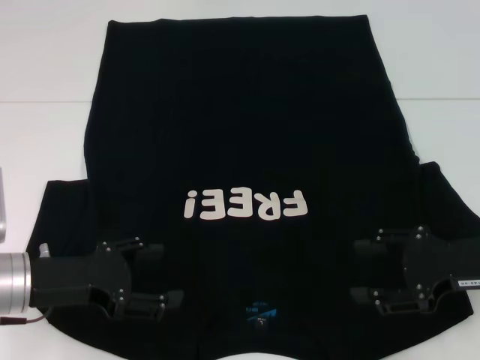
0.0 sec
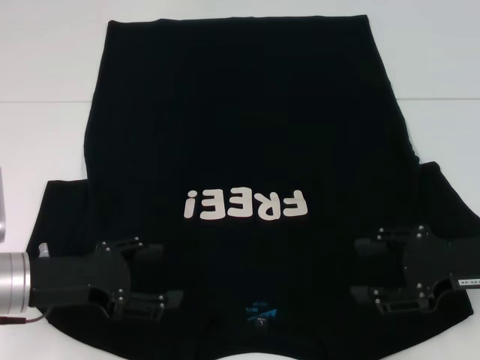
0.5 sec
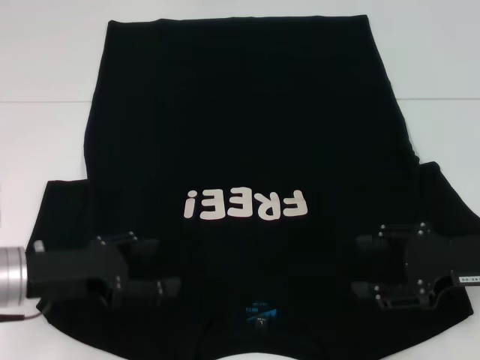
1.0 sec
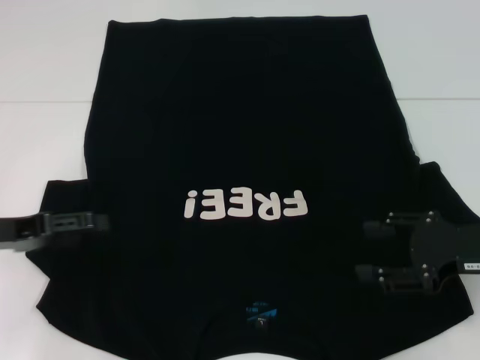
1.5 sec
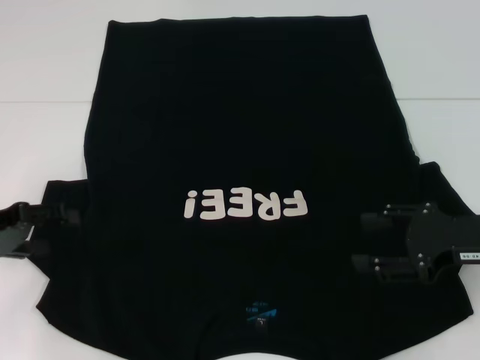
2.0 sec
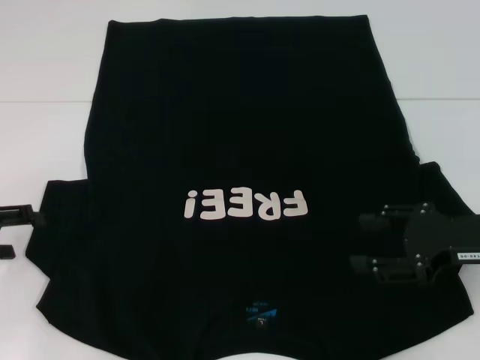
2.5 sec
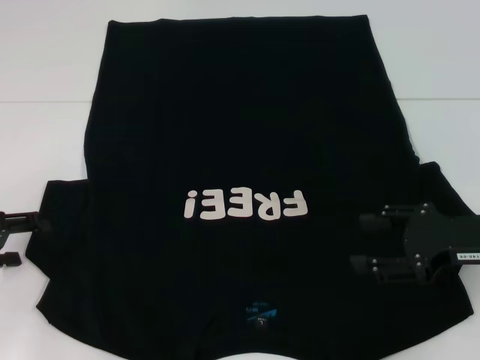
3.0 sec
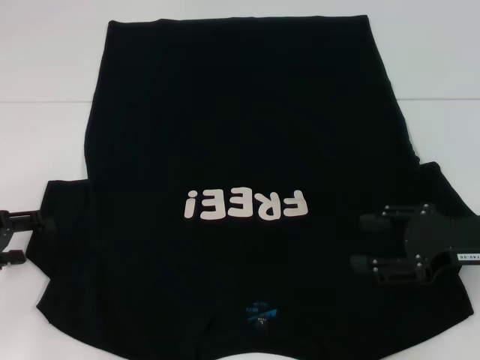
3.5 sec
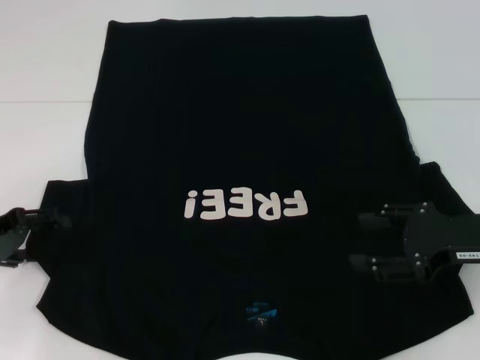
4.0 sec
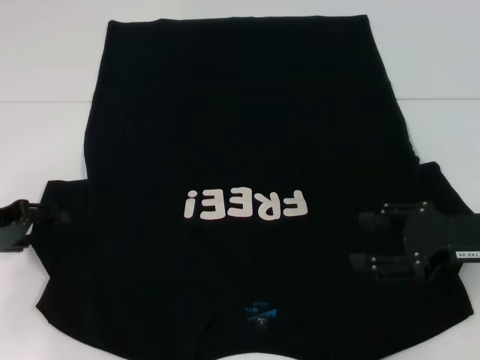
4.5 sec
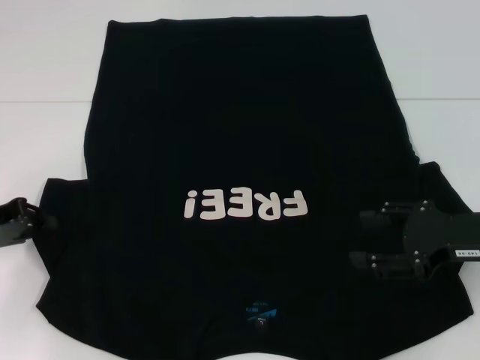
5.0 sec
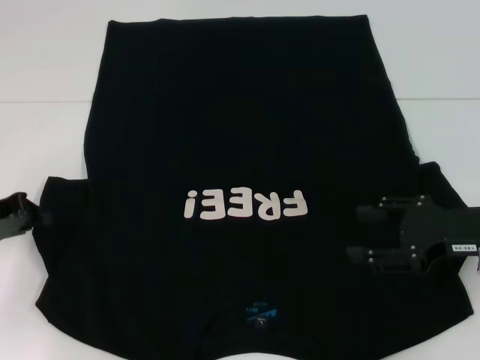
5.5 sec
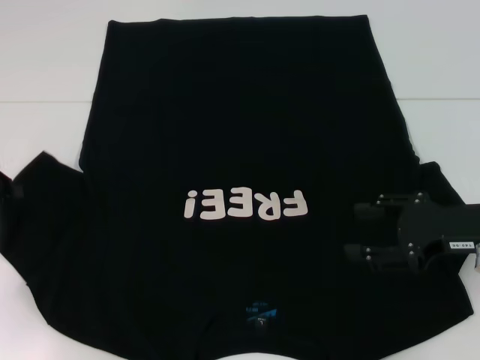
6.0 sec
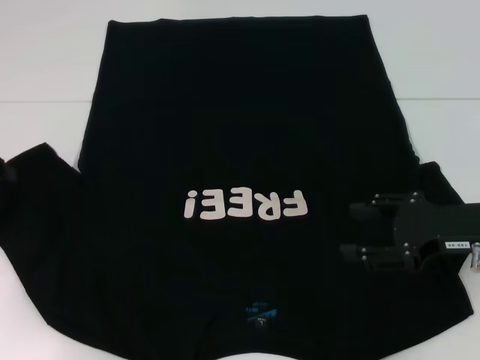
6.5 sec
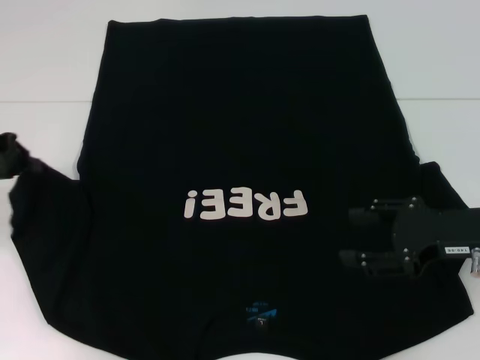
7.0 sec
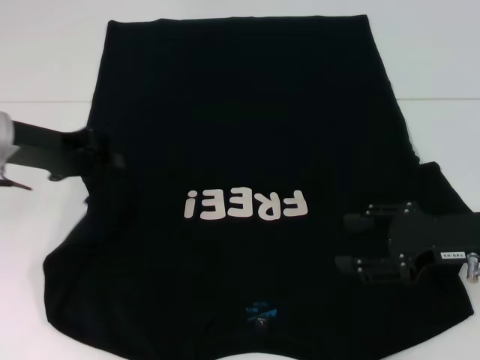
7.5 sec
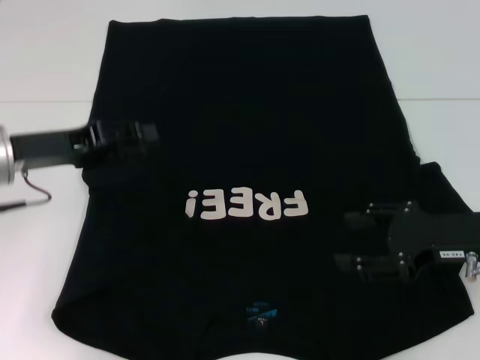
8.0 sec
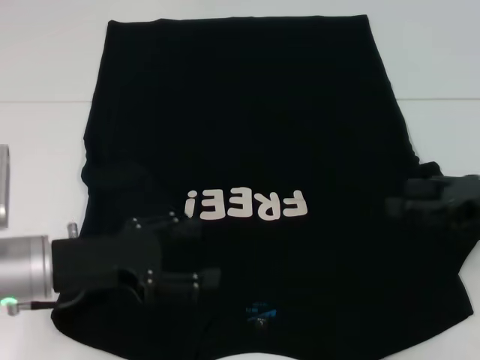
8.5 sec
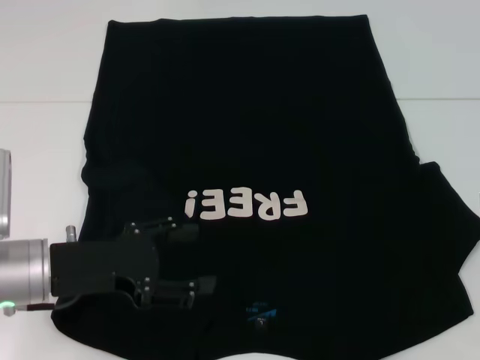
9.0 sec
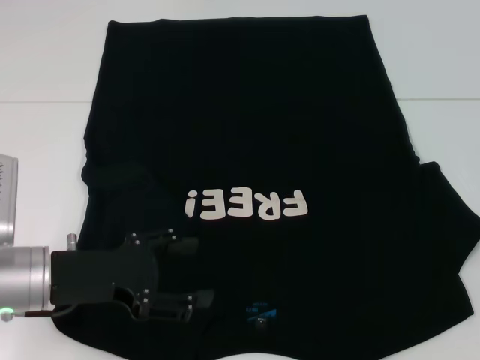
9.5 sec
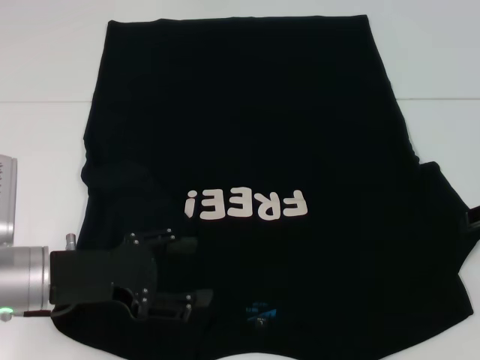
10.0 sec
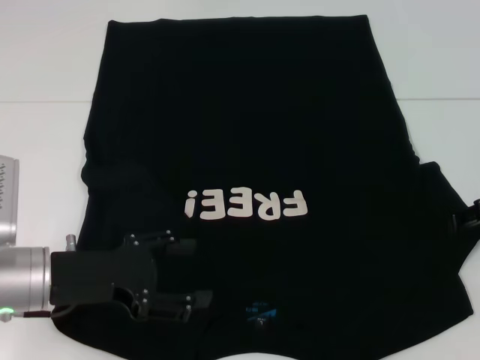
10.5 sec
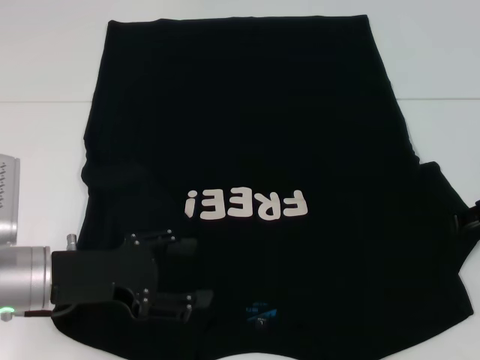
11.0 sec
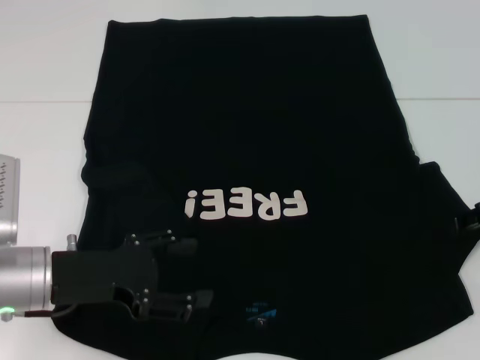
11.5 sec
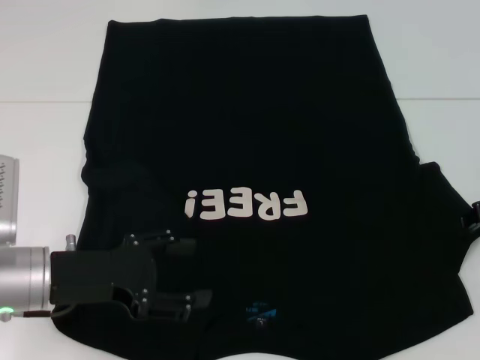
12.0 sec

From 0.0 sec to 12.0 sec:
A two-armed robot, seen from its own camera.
Step, from 0.0 sec to 8.0 sec: Fold the bottom left sleeve with your left hand.
From 0.0 sec to 2.0 sec: The left gripper heads to the left, covering approximately 10 cm.
From 4.0 sec to 6.0 sec: The left gripper shifts by roughly 5 cm, and closes its fingers.
From 6.0 sec to 8.0 sec: The left gripper moves to the right, about 10 cm.
From 8.0 sec to 10.0 sec: The left gripper travels backward and downward by some 10 cm, and opens; the right gripper is displaced to the right and forward by some 10 cm.

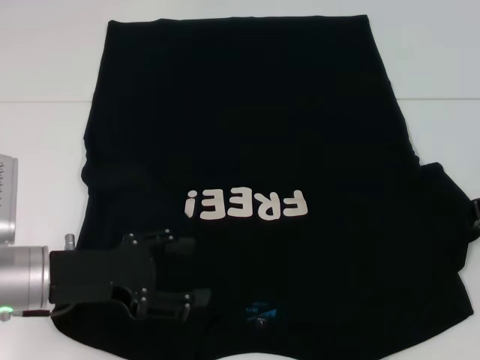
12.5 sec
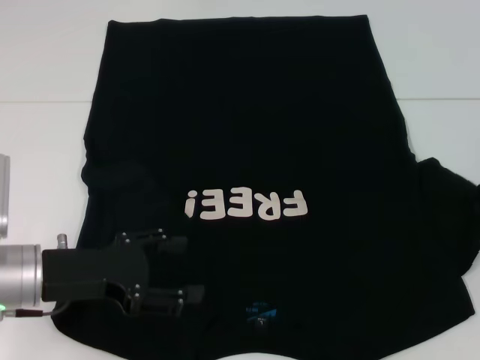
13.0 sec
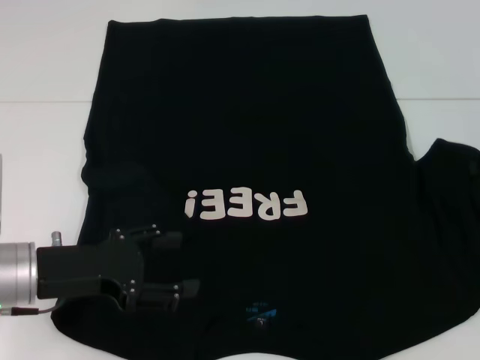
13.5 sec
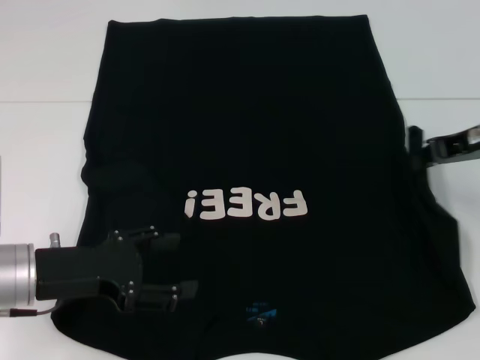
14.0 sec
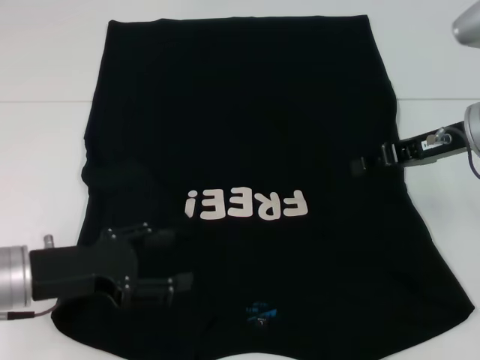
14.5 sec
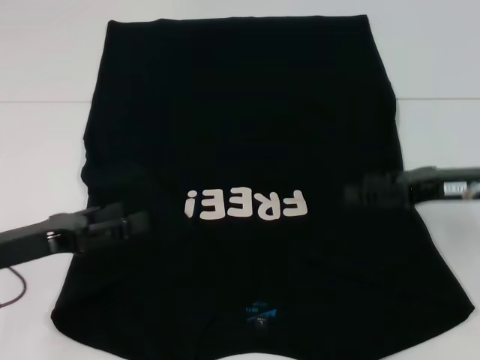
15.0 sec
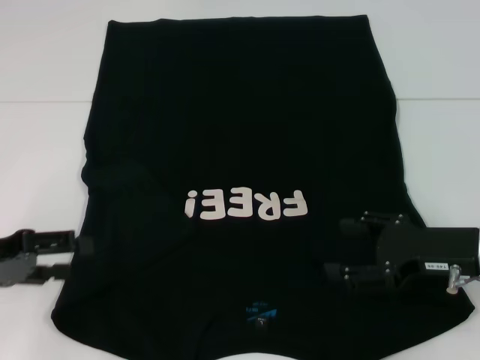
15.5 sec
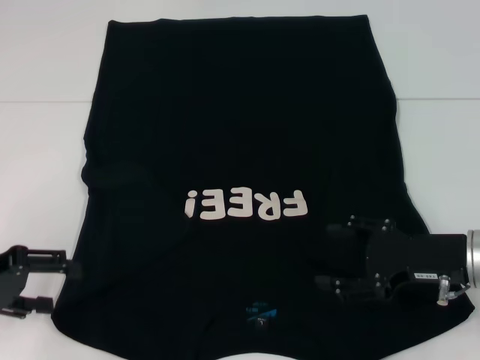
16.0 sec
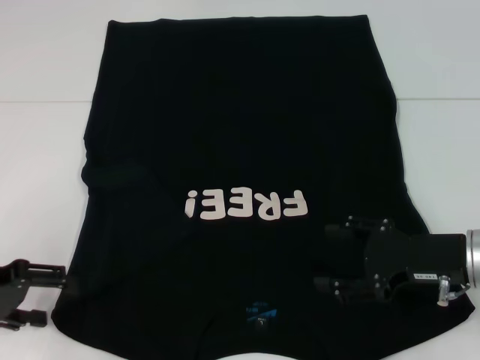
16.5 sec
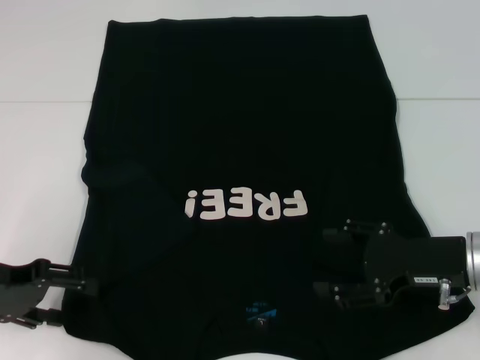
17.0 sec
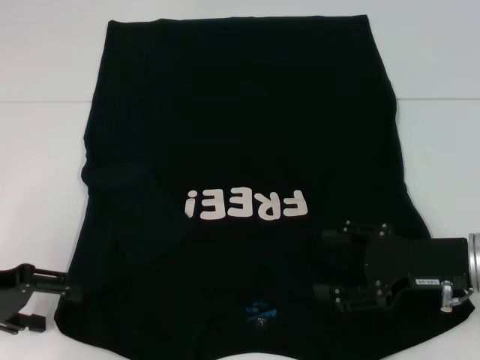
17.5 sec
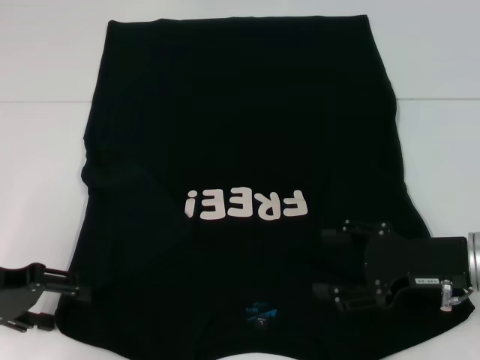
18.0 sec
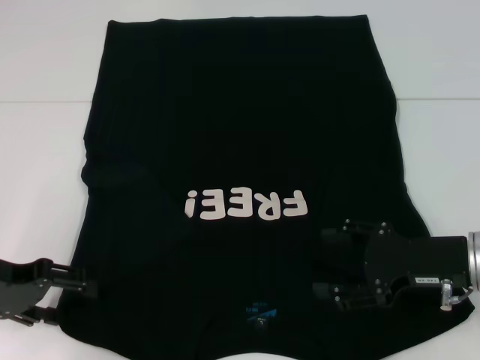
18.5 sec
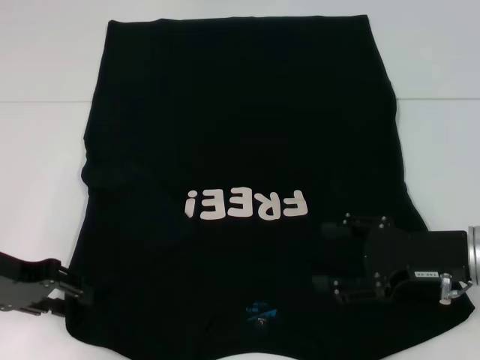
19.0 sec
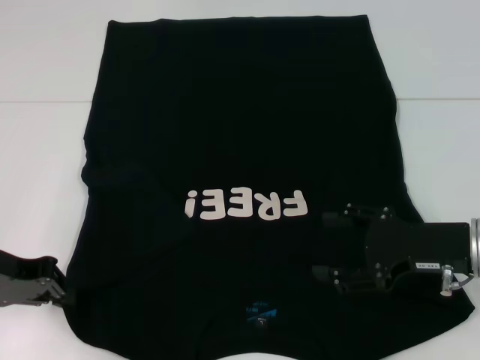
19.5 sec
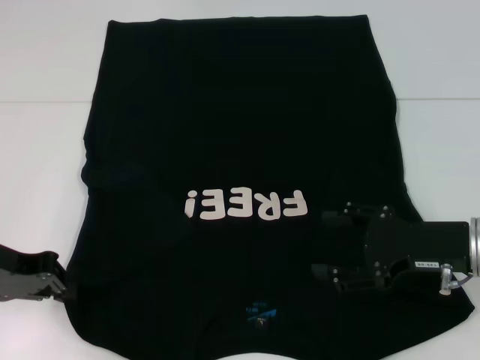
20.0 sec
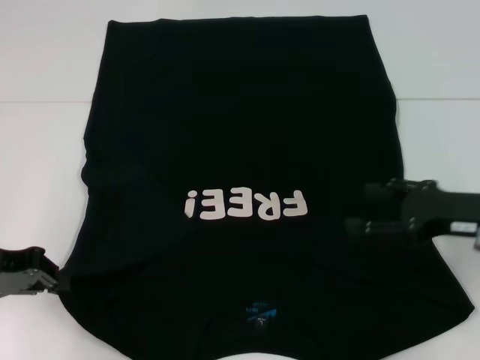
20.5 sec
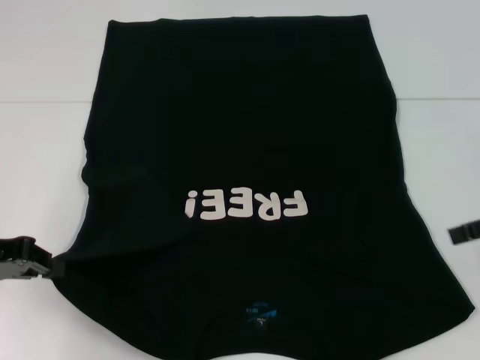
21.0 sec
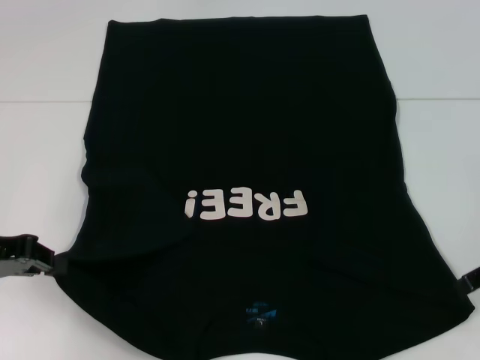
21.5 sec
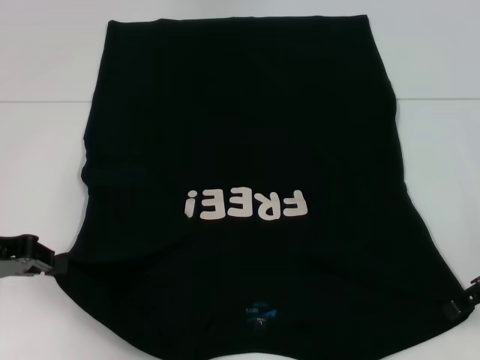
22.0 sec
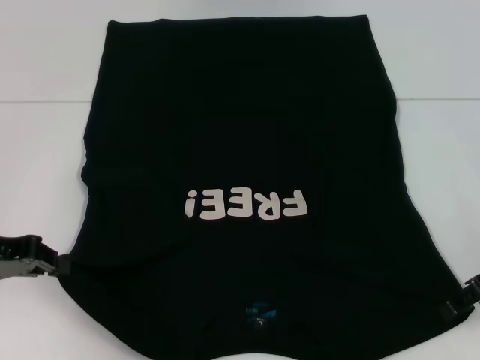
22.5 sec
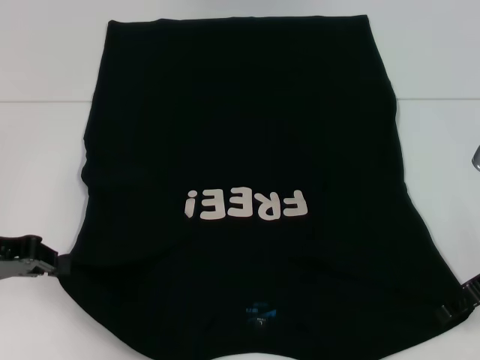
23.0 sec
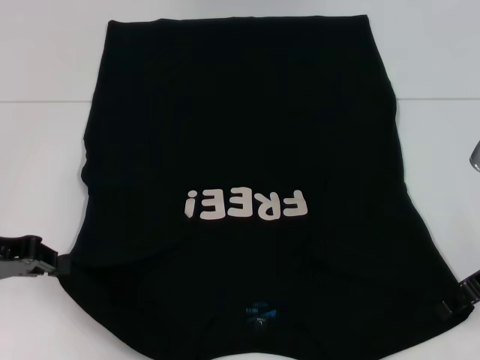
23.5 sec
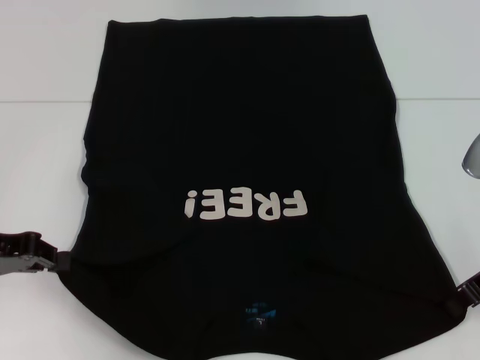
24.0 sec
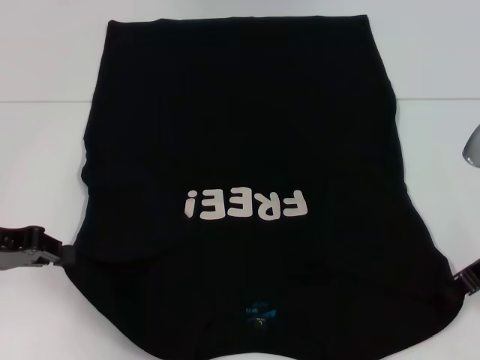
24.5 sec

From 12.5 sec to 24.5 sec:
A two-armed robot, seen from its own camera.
Step, from 12.5 sec to 14.5 sec: Fold the bottom right sleeve with your right hand.
Step, from 15.0 sec to 24.0 sec: Grab the bottom left corner with your left hand.
Step, from 15.0 sec to 24.0 sec: Grab the bottom right corner with your right hand.
From 12.5 sec to 14.5 sec: The right gripper is displaced to the left by about 10 cm.
From 14.5 sec to 16.5 sec: The right gripper shifts roughly 15 cm downward and backward, and opens its fingers; the left gripper goes roughly 10 cm to the left.
From 16.5 sec to 18.5 sec: The grippers stay close to where they were, moving slightly.
From 18.5 sec to 20.5 sec: The left gripper closes. The right gripper changes place by roughly 5 cm.
From 20.5 sec to 22.5 sec: The right gripper reaches roughly 10 cm upward, then returns.
From 22.5 sec to 24.5 sec: The right gripper closes.

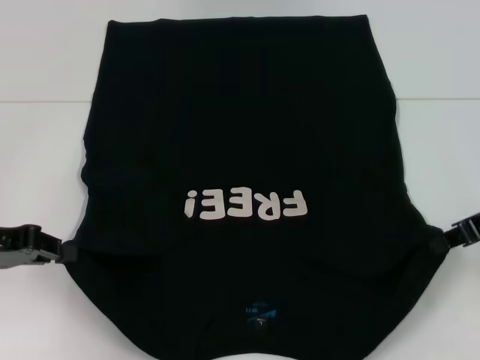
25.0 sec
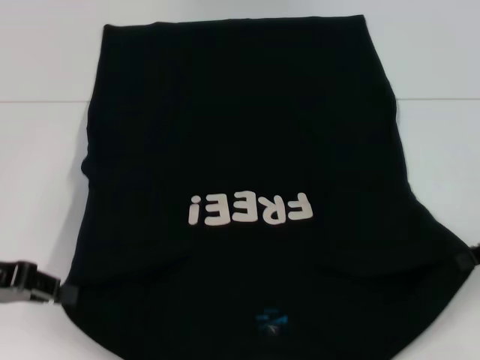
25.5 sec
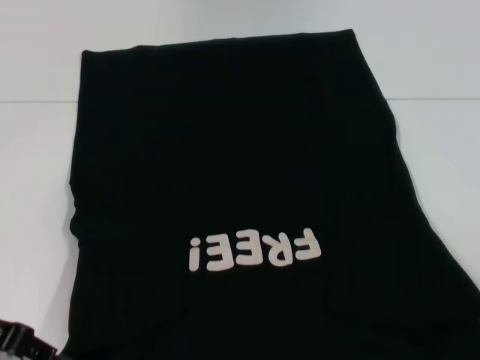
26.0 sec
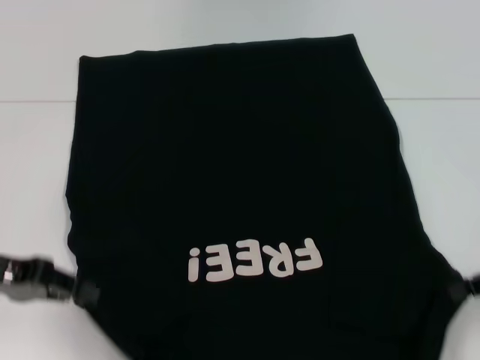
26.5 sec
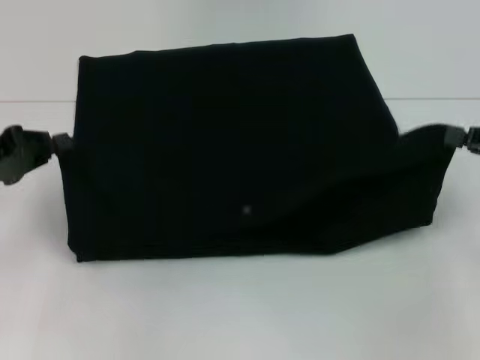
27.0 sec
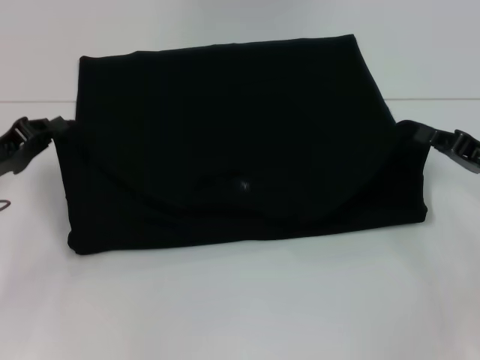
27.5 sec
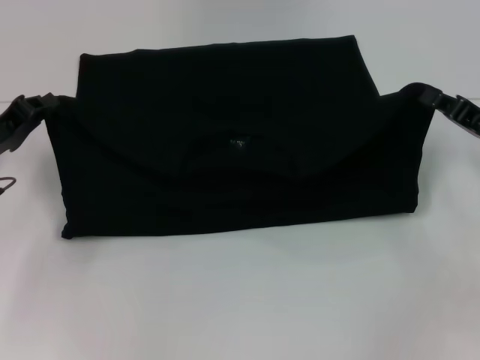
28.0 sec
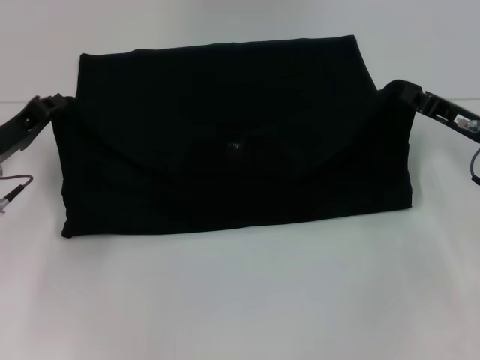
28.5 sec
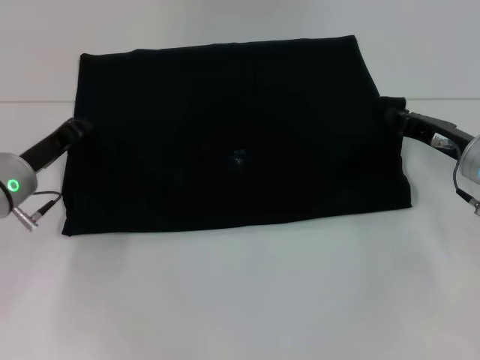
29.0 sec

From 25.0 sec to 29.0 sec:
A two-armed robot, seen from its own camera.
From 25.0 sec to 27.0 sec: The right gripper goes about 5 cm to the right.
From 27.0 sec to 29.0 sec: The left gripper heads to the right and downward, covering about 10 cm, while the right gripper heads to the left, downward and forward, covering approximately 15 cm.
